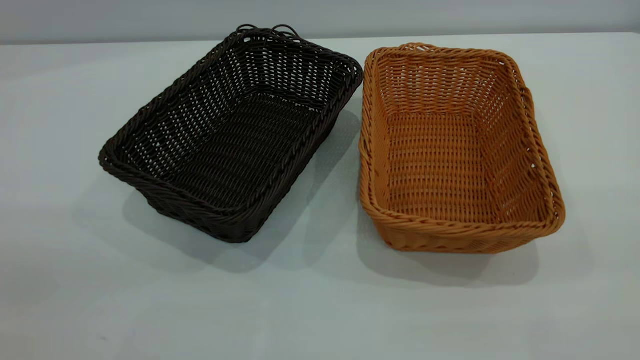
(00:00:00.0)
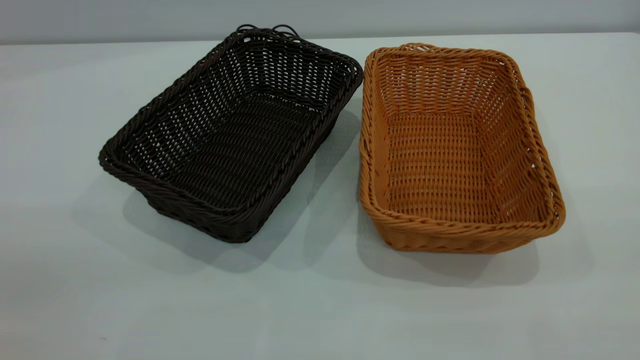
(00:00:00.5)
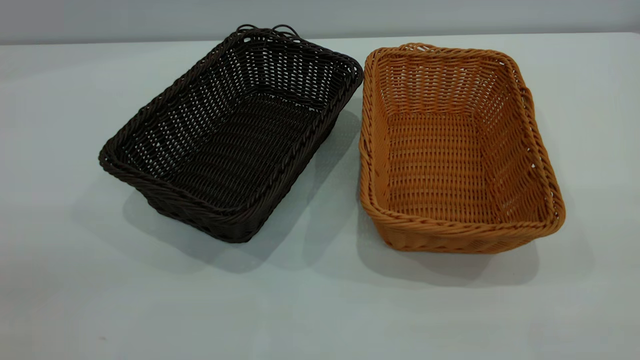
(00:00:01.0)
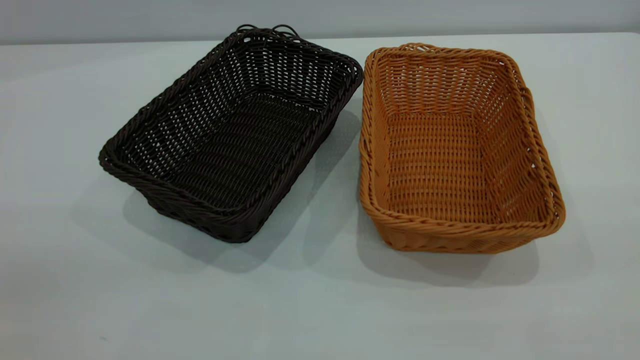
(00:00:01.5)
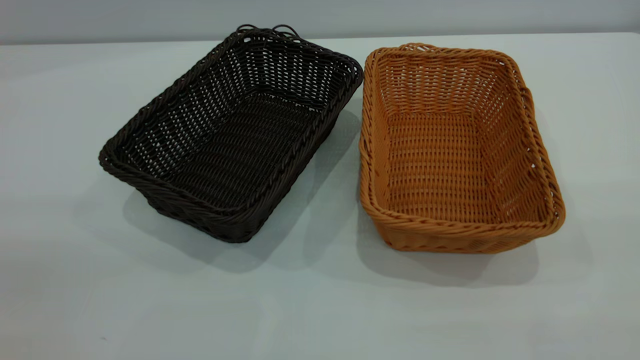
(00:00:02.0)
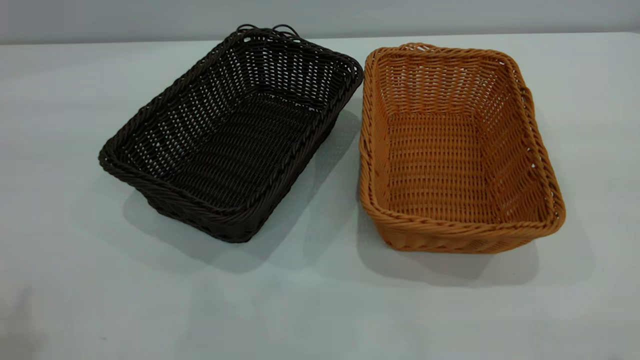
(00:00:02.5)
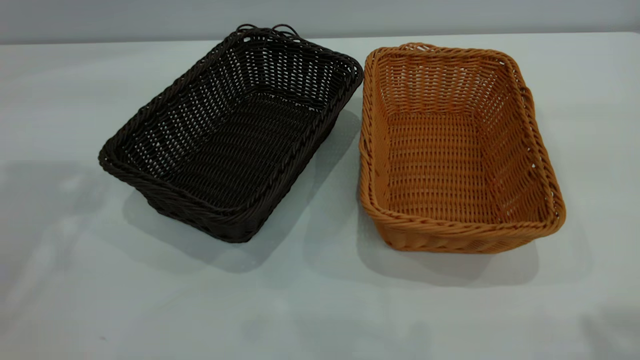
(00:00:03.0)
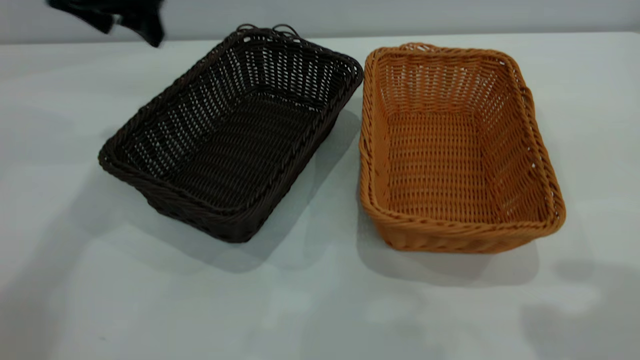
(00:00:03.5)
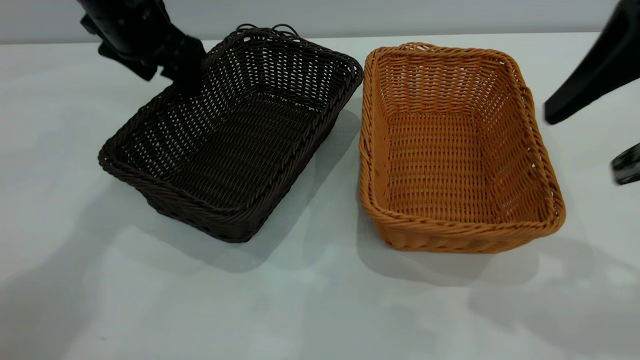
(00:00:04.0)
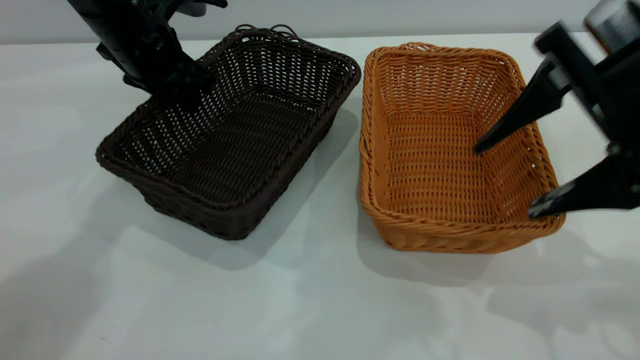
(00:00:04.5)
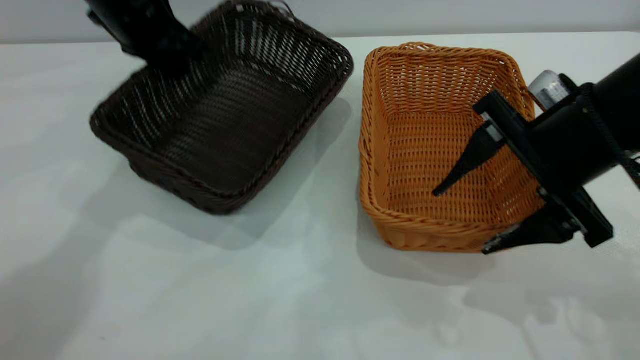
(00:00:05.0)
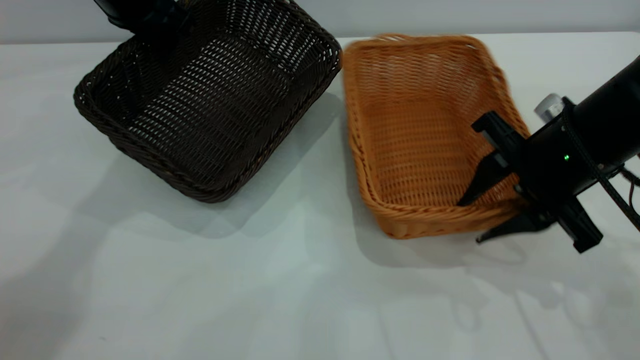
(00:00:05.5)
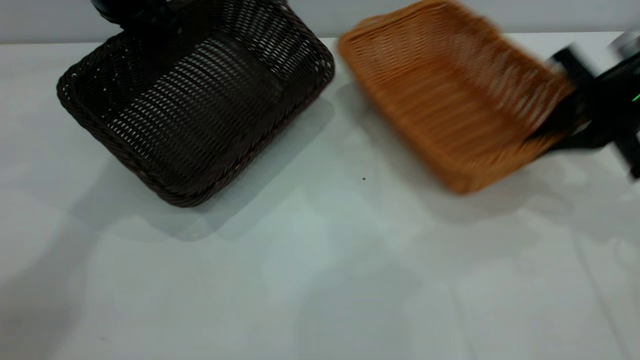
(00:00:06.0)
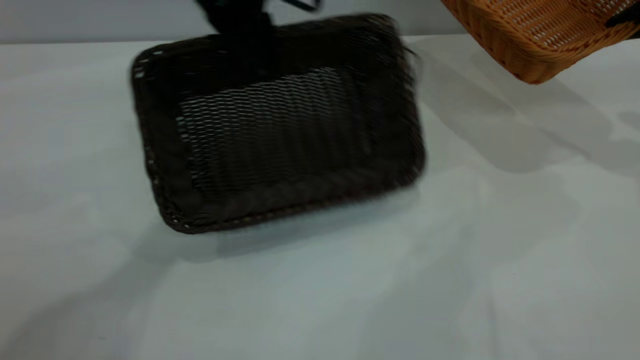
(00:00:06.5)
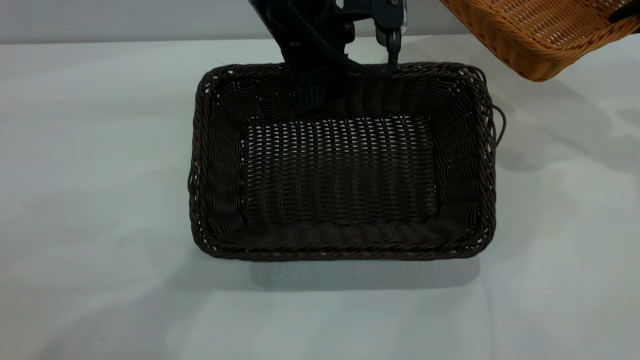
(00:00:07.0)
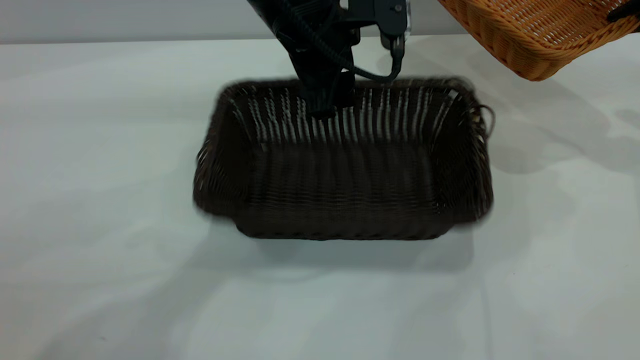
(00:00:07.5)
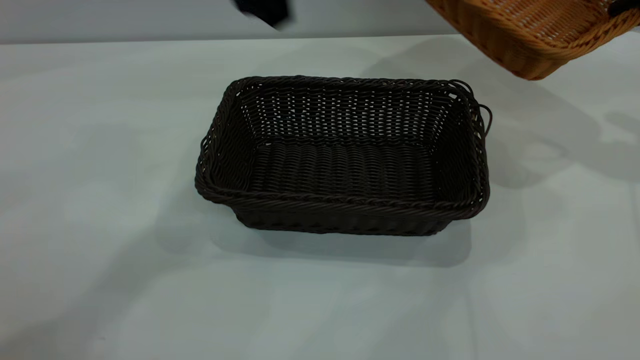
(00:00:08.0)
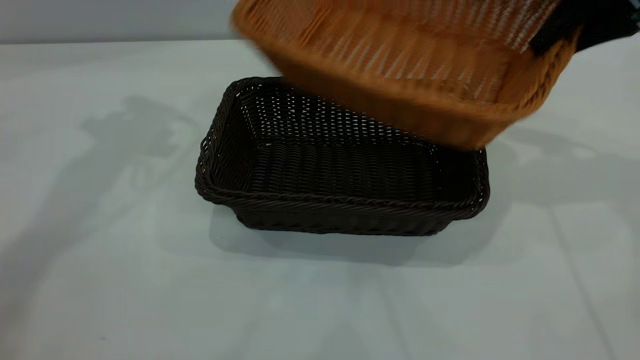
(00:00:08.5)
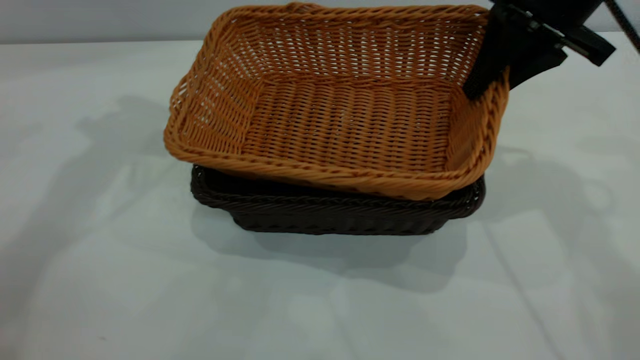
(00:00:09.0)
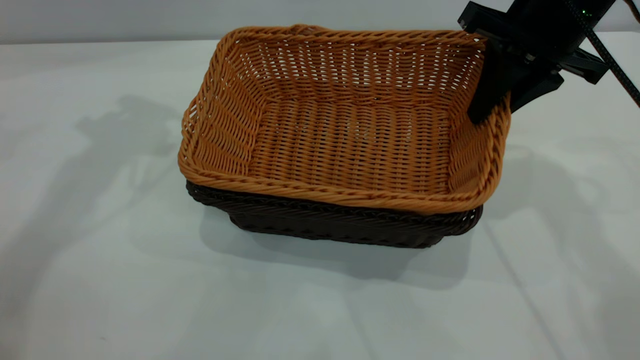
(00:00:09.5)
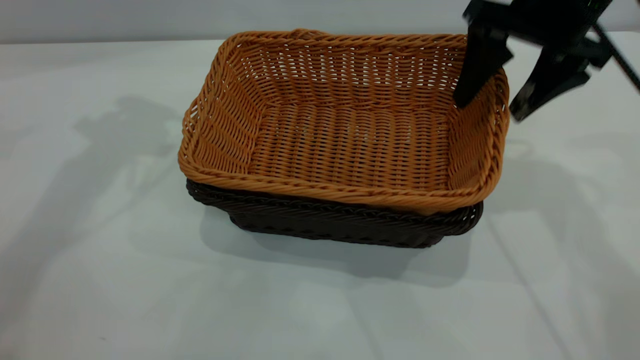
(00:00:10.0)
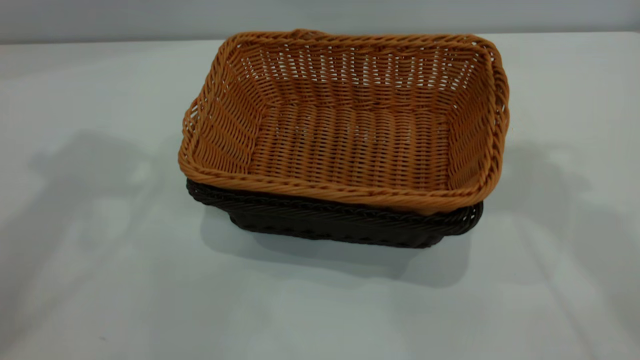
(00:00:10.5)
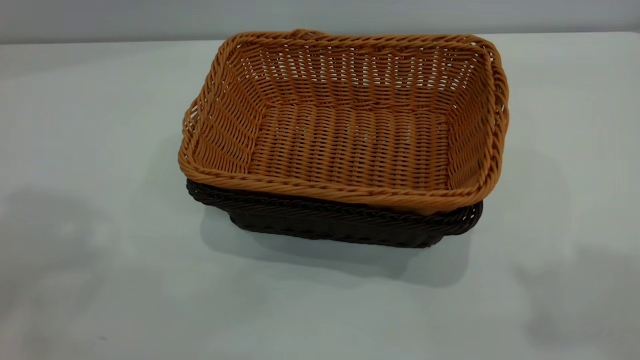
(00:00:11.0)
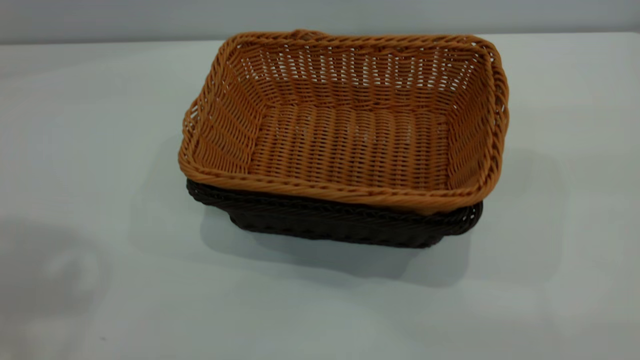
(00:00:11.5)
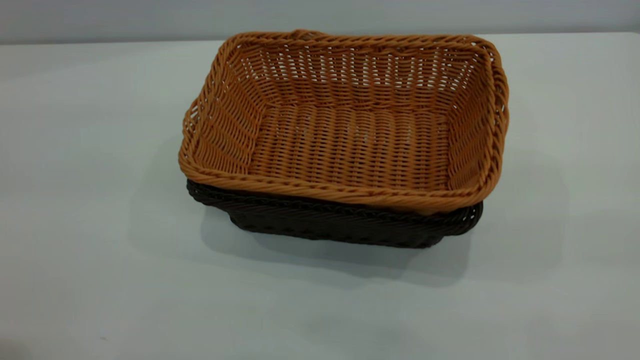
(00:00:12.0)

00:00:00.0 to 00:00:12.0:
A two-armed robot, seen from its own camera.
Task of the whole recording: the left gripper grasp the black basket and place it in the center of the table, the right gripper grasp the brown basket and place it inside the black one.
Step, 00:00:00.0 to 00:00:06.0: Pick up the light basket with the right gripper.
Step, 00:00:06.5 to 00:00:07.5: Move the dark basket to the center of view.
Step, 00:00:08.0 to 00:00:10.0: Place the light basket on the dark basket.
00:00:02.0 to 00:00:04.0: The left gripper shifts approximately 50 cm forward and downward. The right gripper goes roughly 25 cm forward and downward.
00:00:04.0 to 00:00:06.0: The left gripper closes. Meanwhile the right gripper shifts approximately 20 cm forward, downward and to the right, and closes up.
00:00:06.0 to 00:00:08.0: The right gripper shifts approximately 10 cm upward and to the right; the left gripper travels to the right and upward by about 10 cm, and opens its fingers.
00:00:08.0 to 00:00:10.0: Both grippers move to the left, about 15 cm. The right gripper opens up.
00:00:10.0 to 00:00:12.0: The right gripper travels backward and upward by some 40 cm. Meanwhile the left gripper shifts approximately 35 cm backward.

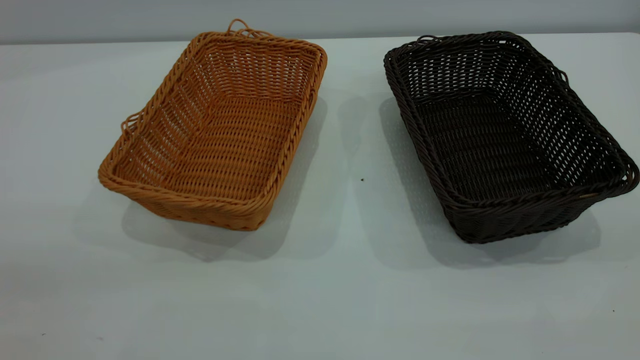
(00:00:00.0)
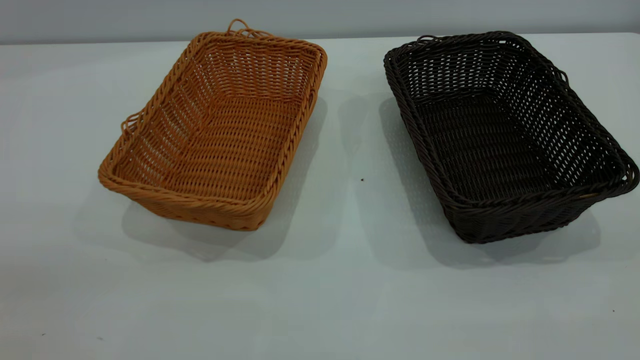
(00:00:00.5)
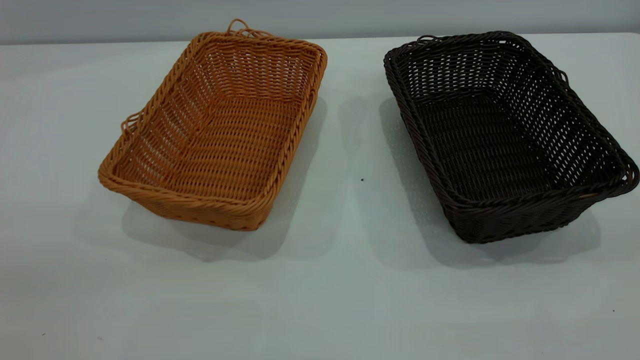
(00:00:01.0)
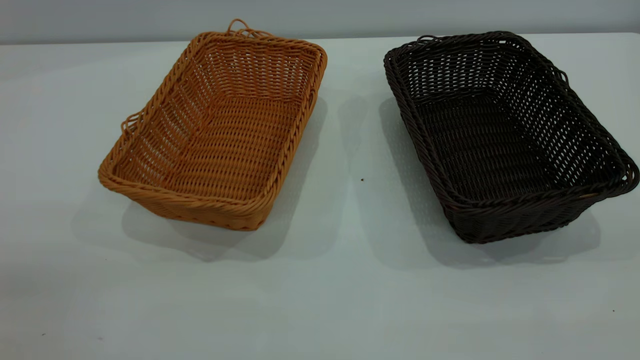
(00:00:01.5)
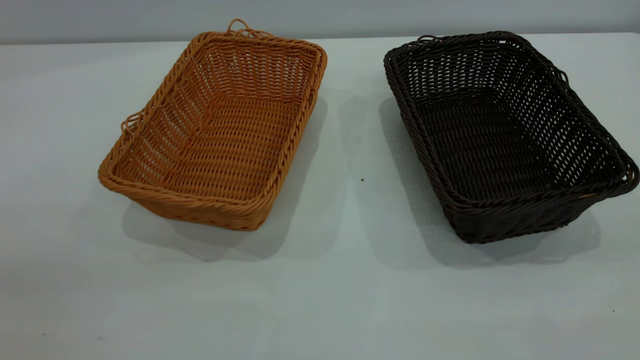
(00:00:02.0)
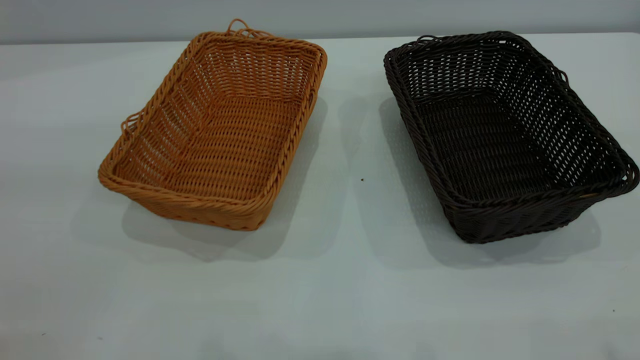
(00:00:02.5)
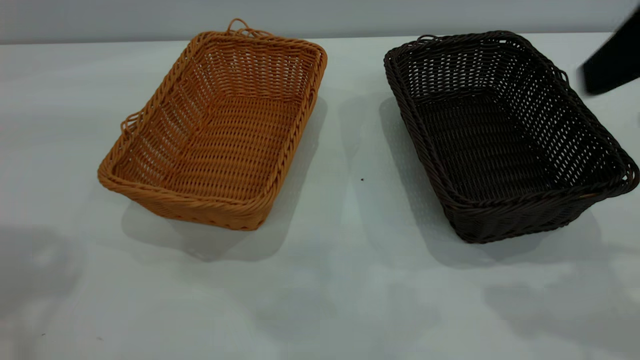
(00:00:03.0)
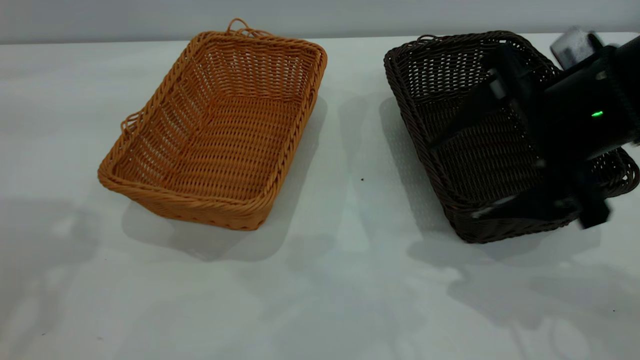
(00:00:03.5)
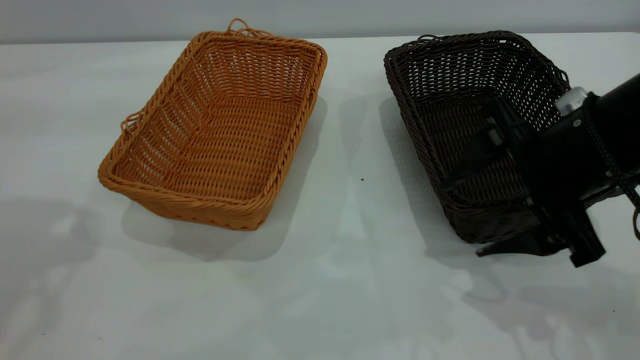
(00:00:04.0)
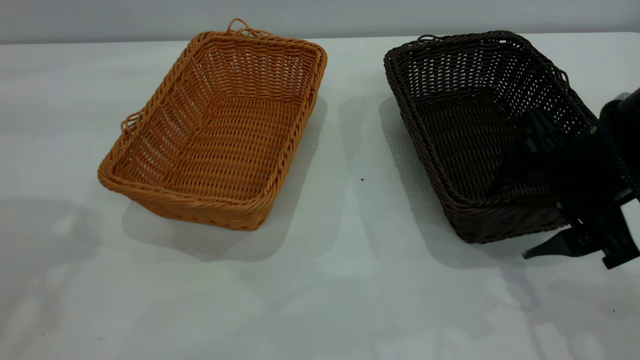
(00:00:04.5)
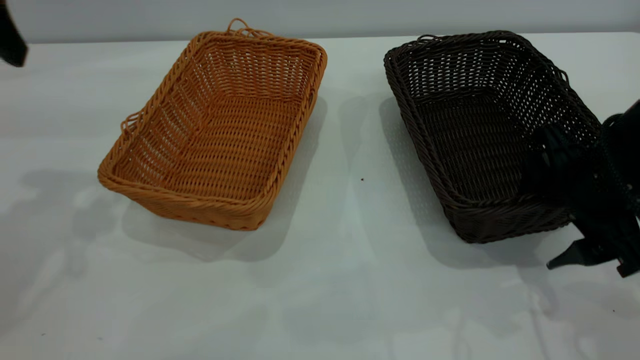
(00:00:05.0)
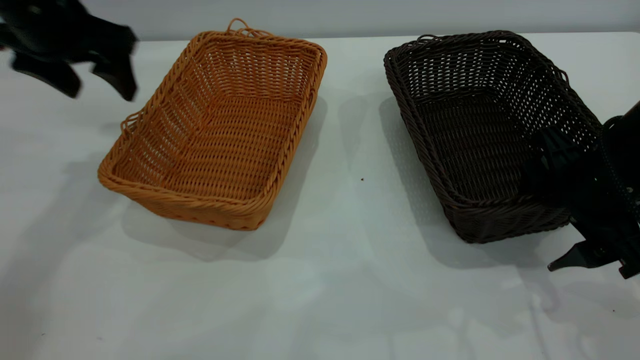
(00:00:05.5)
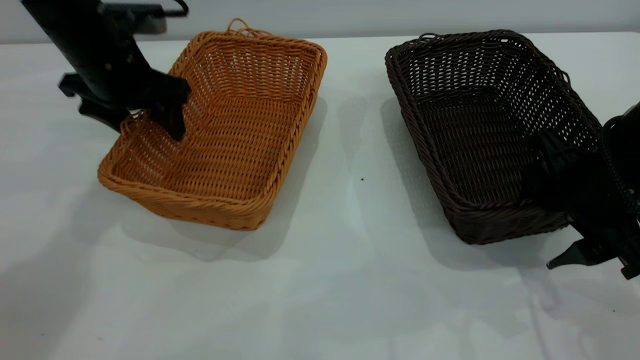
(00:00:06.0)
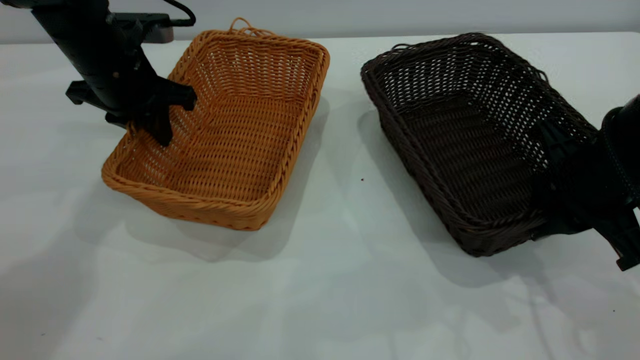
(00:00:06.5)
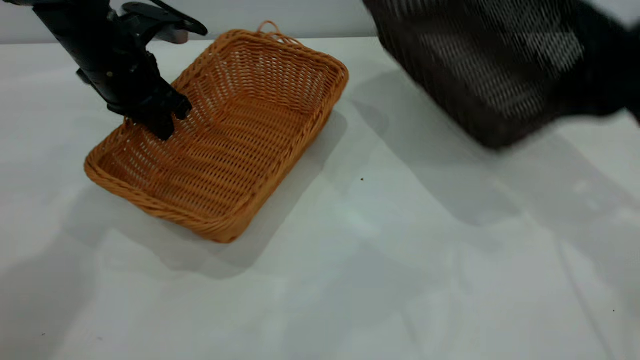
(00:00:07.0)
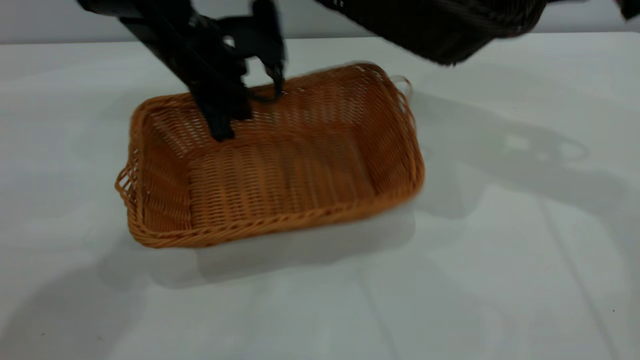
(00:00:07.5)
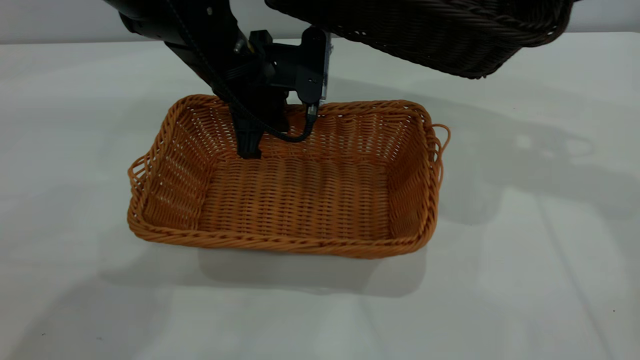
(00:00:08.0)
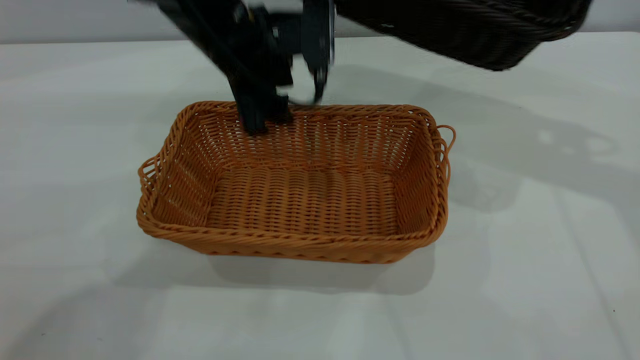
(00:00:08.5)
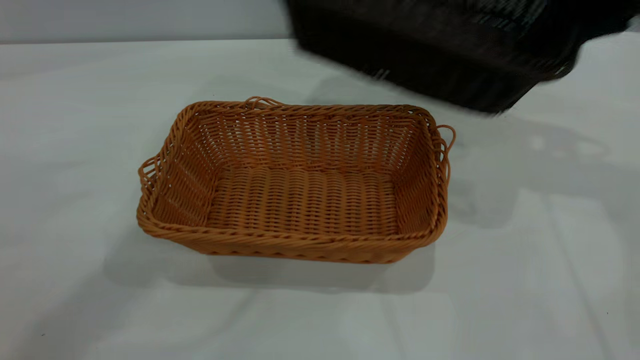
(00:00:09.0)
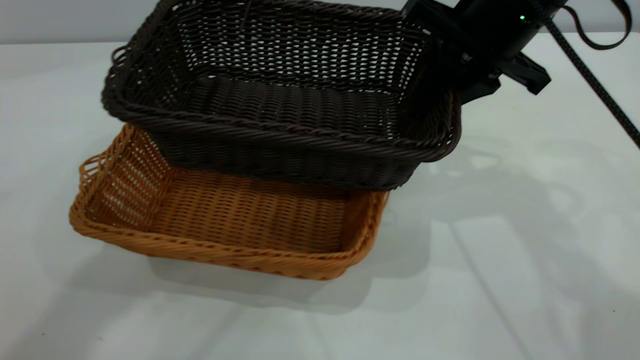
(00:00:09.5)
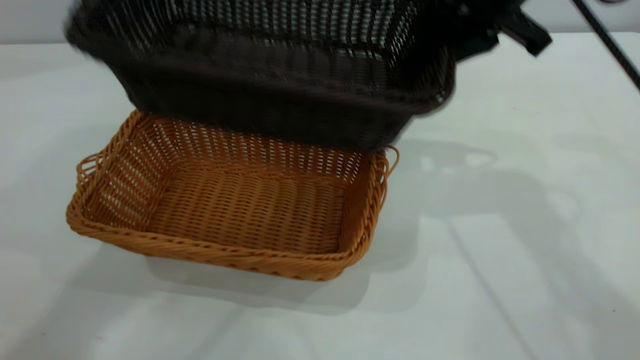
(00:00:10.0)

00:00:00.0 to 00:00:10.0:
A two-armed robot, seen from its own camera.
Task of the whole recording: the left gripper grasp the brown basket and place it in the center of the table, the right gripper grasp the black basket and place it inside the brown one.
Step, 00:00:00.0 to 00:00:06.5: Pick up the light basket with the right gripper.
Step, 00:00:07.0 to 00:00:08.5: Place the light-colored basket in the center.
00:00:00.0 to 00:00:02.0: Both grippers stay about where they are.
00:00:02.0 to 00:00:04.0: The right gripper goes approximately 35 cm forward and downward.
00:00:04.0 to 00:00:06.0: The left gripper heads downward, forward and to the right, covering roughly 25 cm.
00:00:06.0 to 00:00:08.0: The right gripper goes about 20 cm upward and forward, and closes, while the left gripper moves to the right, roughly 15 cm, and closes.
00:00:08.0 to 00:00:10.0: The right gripper moves to the left, some 10 cm. The left gripper moves upward, roughly 35 cm, and opens.
